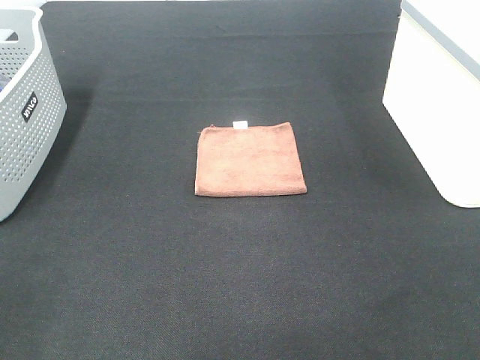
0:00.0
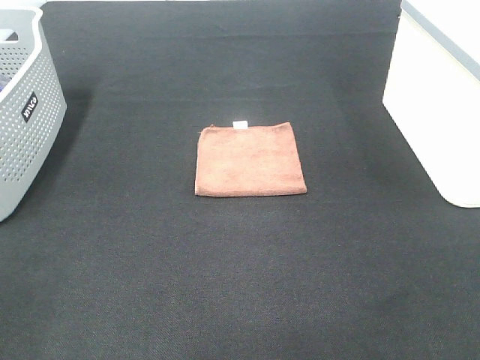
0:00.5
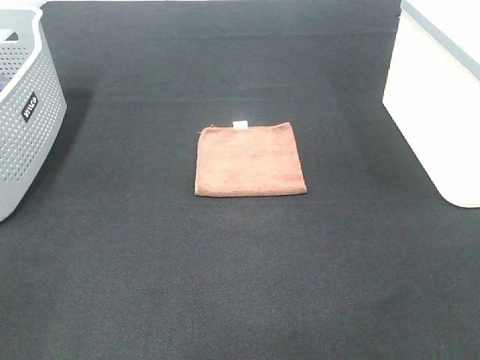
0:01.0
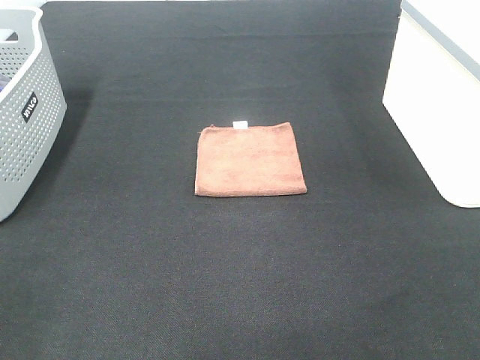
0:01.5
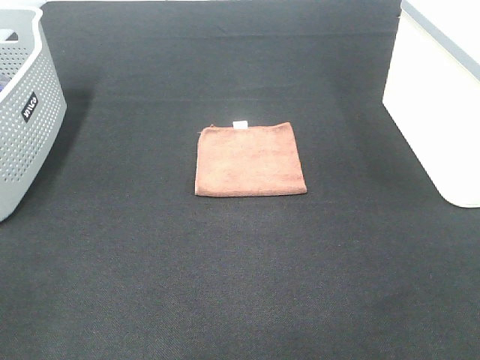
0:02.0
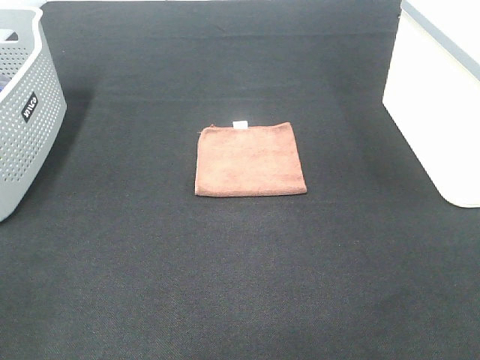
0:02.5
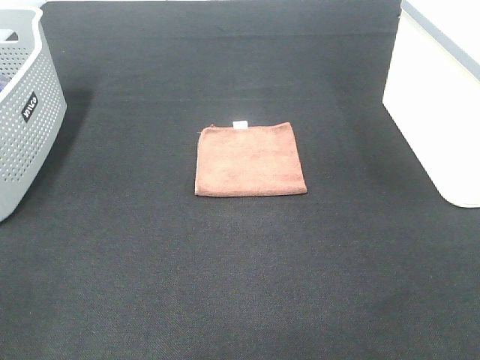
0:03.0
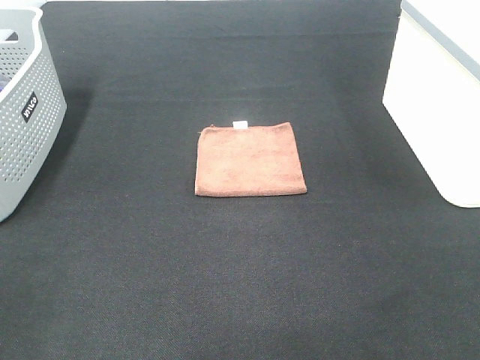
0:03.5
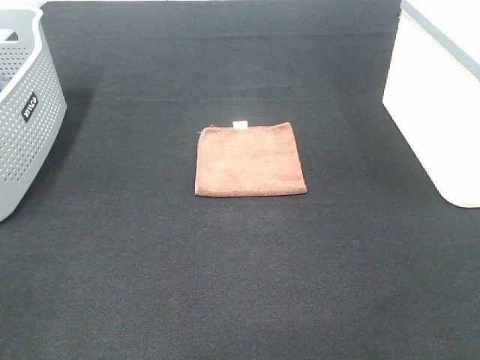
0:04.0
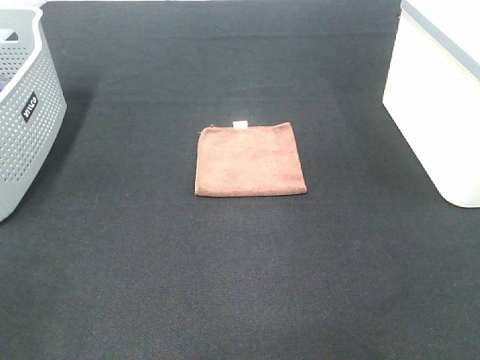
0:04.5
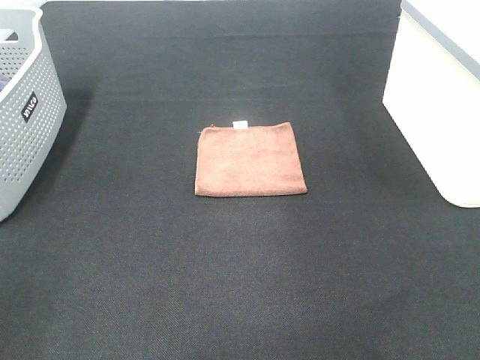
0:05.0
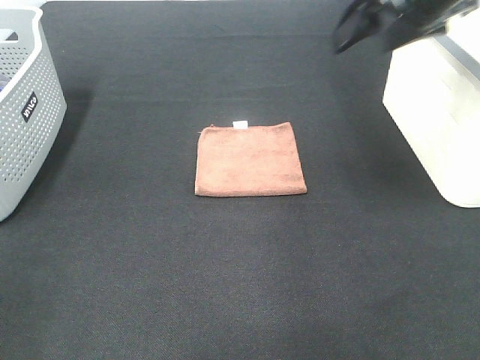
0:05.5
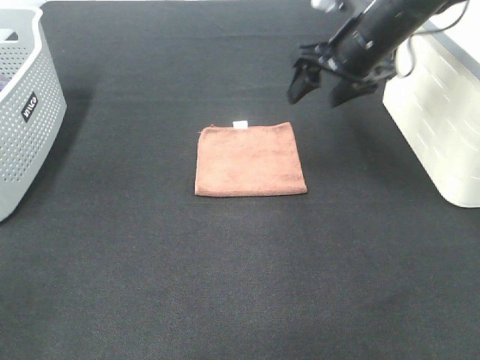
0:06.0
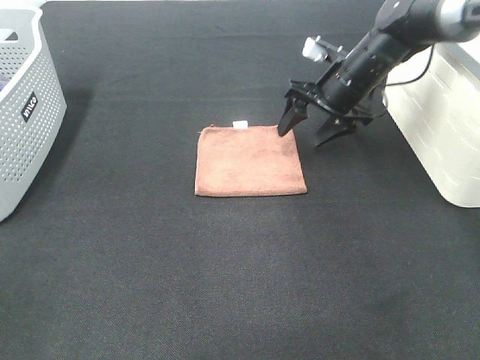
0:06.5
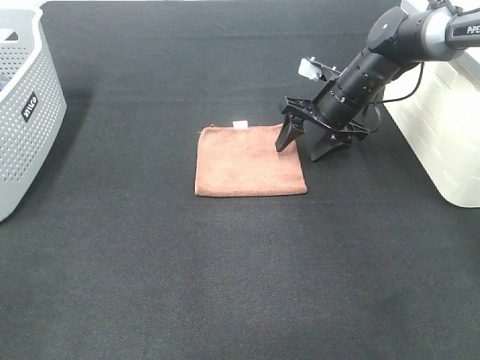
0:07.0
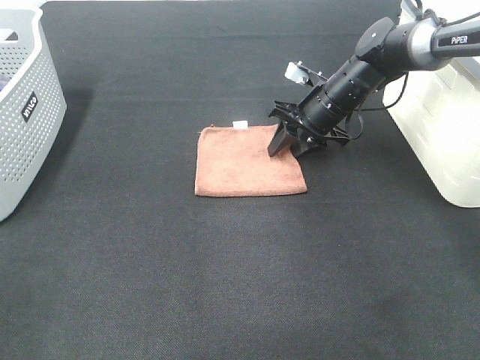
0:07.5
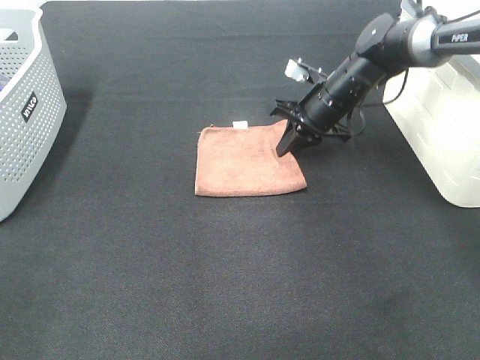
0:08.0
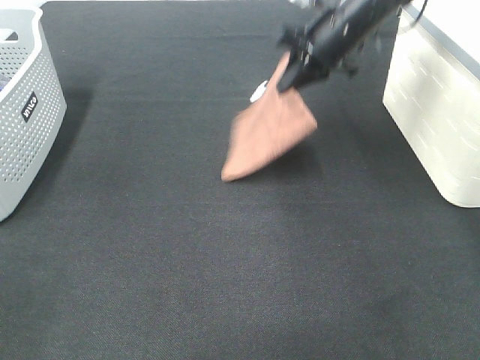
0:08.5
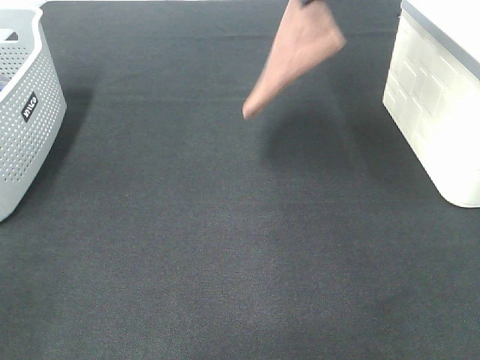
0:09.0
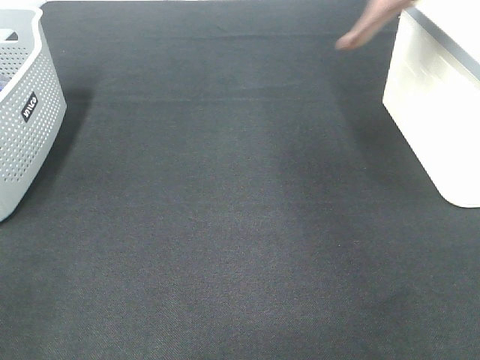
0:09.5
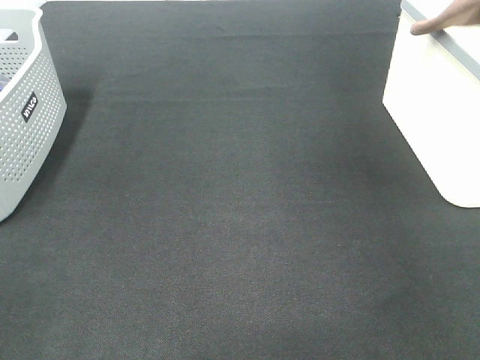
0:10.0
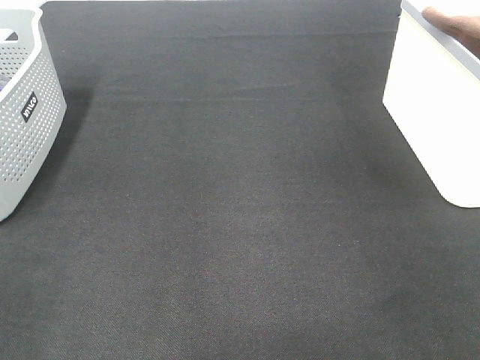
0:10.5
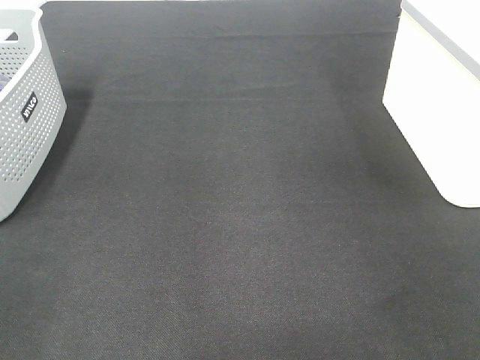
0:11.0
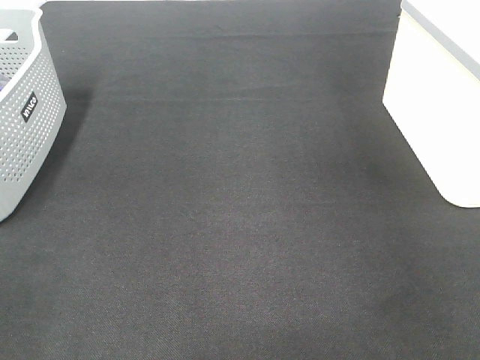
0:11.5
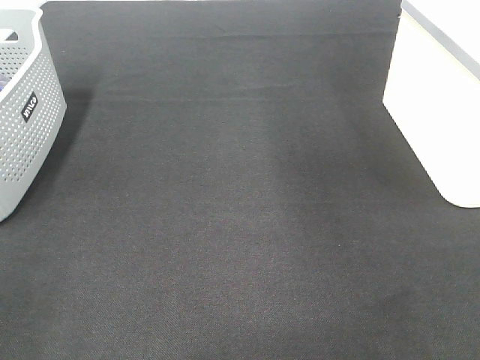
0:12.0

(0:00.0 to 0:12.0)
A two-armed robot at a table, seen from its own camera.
Step, 0:00.0 - 0:08.0: Right hand: grab the folded brown towel.
Step, 0:08.5 - 0:11.0: Right hand: place the brown towel in right basket.
0:00.0 - 0:02.0: Both grippers stay put.
0:04.0 - 0:06.0: The right gripper goes approximately 40 cm forward.
0:06.0 - 0:08.0: The right gripper goes approximately 10 cm downward, and closes its fingers.
0:08.0 - 0:10.0: The right gripper heads upward and to the right, covering roughly 40 cm.
0:10.0 - 0:12.0: The right gripper travels to the left by some 10 cm, and opens its fingers.

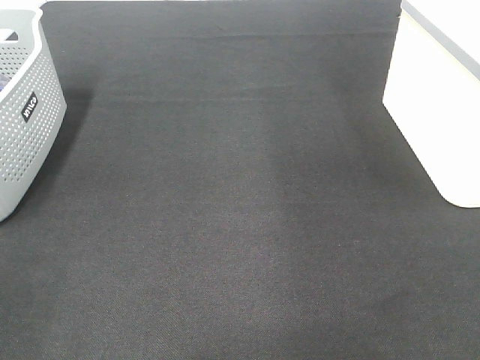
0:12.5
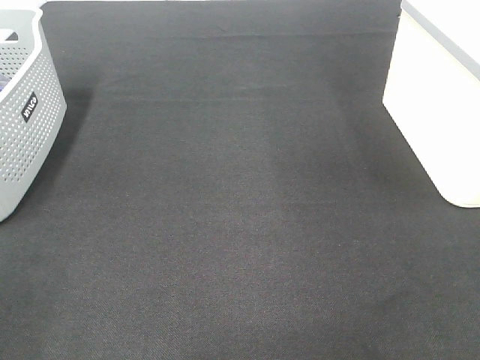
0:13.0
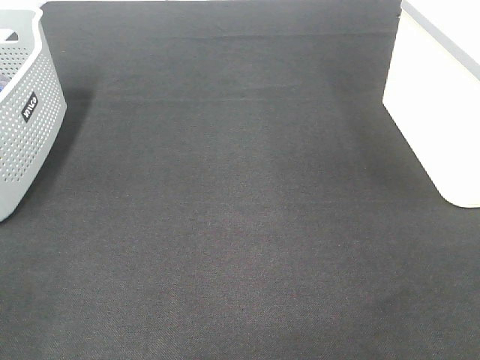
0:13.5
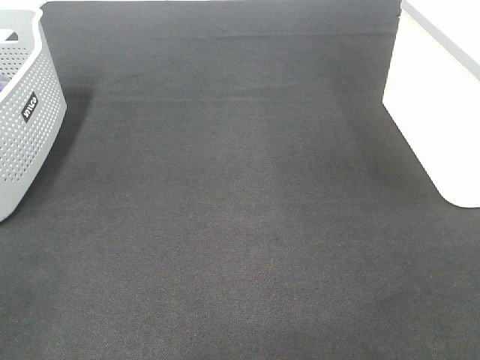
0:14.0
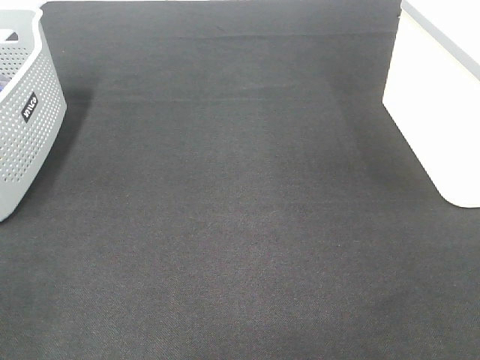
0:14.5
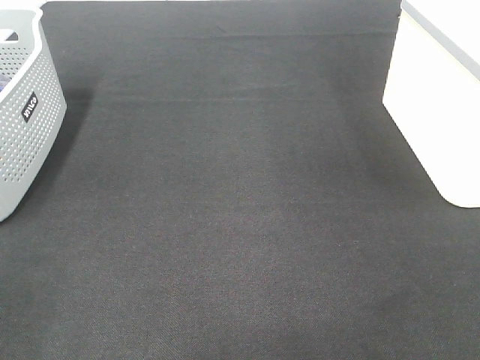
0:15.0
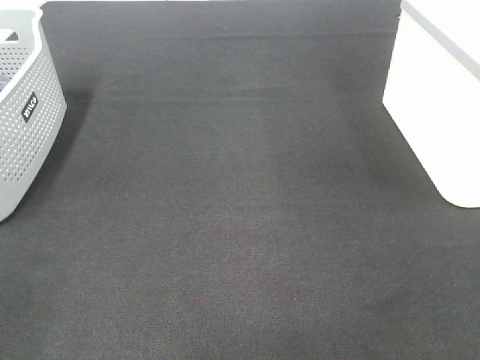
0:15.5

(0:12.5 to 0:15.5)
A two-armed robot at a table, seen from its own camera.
0:14.0 - 0:15.5: Neither gripper changes place.

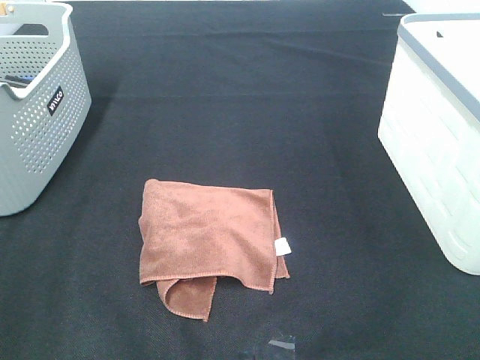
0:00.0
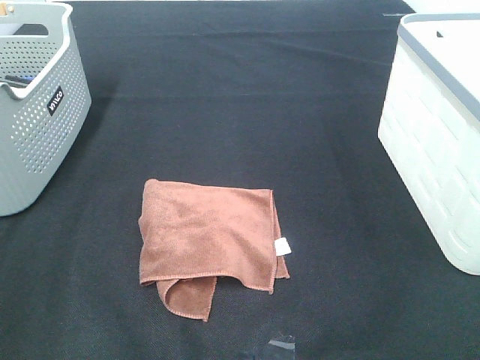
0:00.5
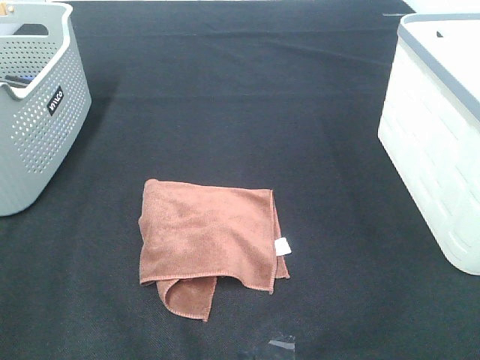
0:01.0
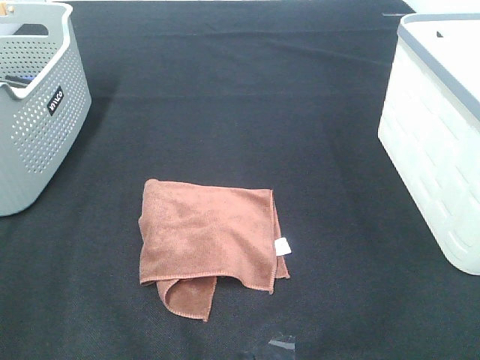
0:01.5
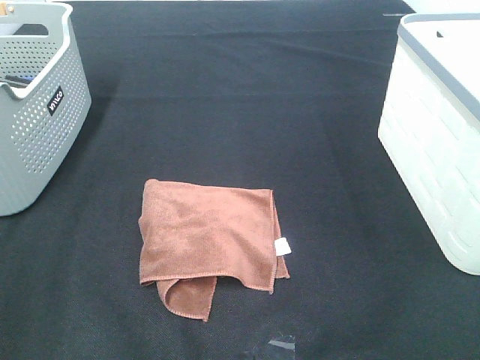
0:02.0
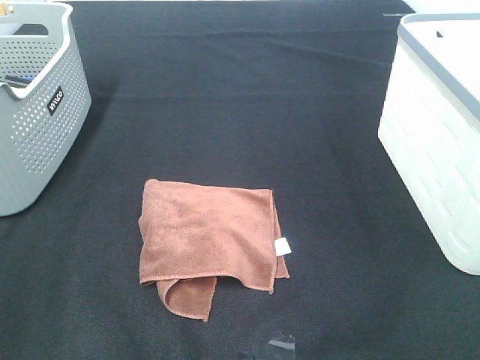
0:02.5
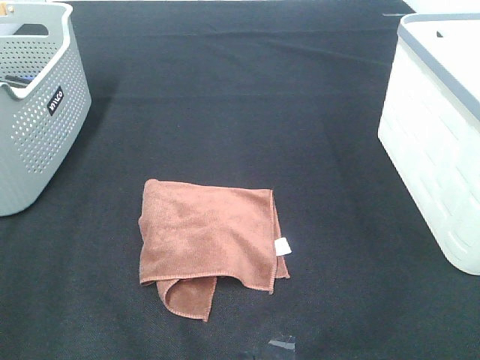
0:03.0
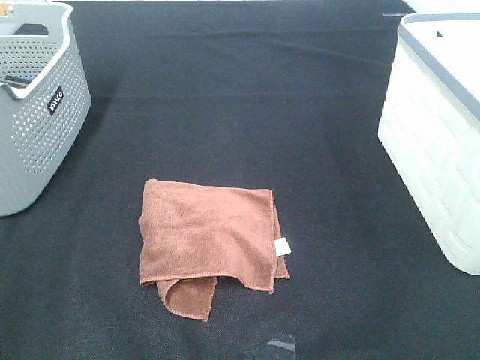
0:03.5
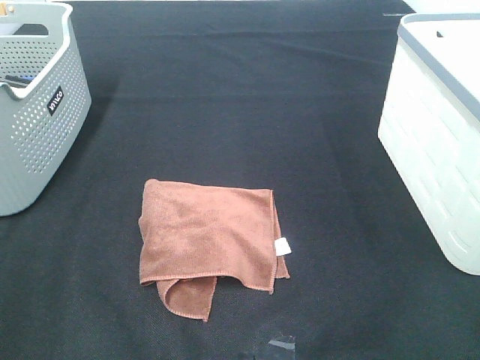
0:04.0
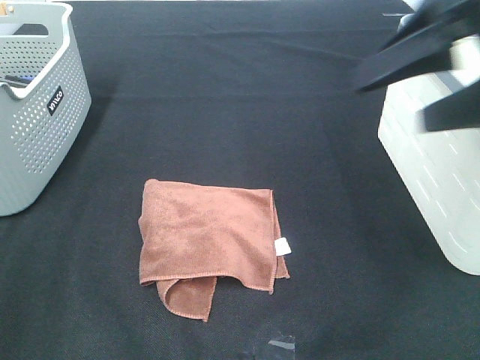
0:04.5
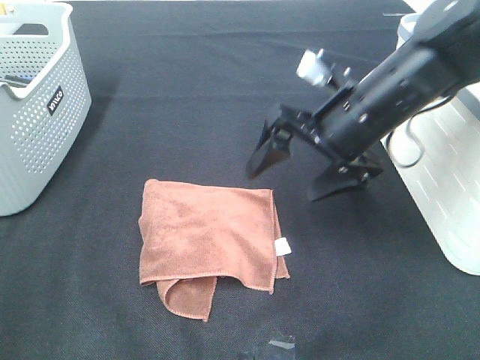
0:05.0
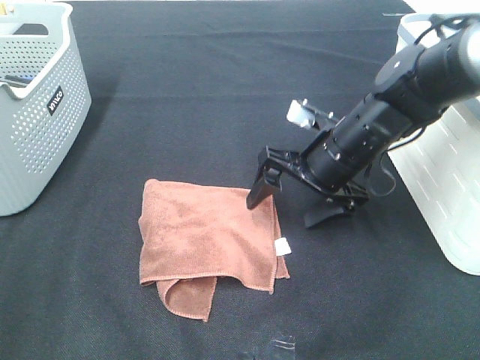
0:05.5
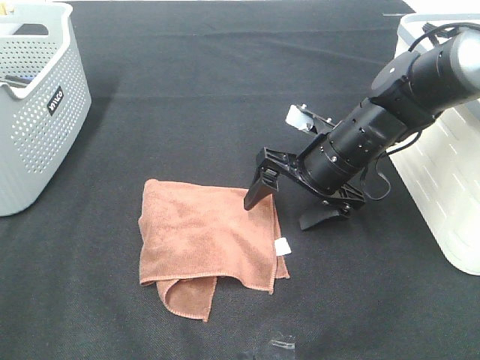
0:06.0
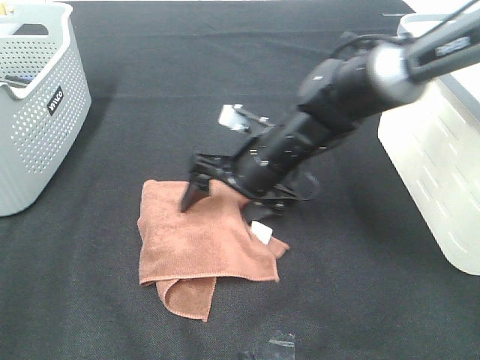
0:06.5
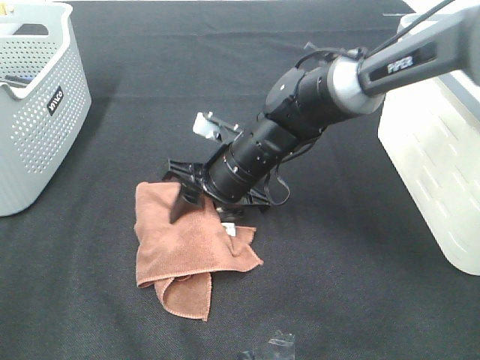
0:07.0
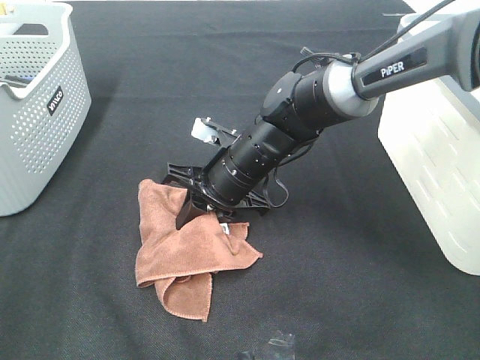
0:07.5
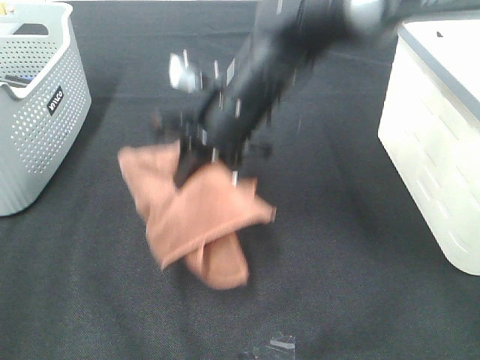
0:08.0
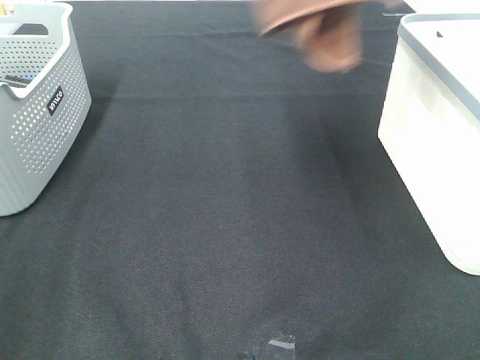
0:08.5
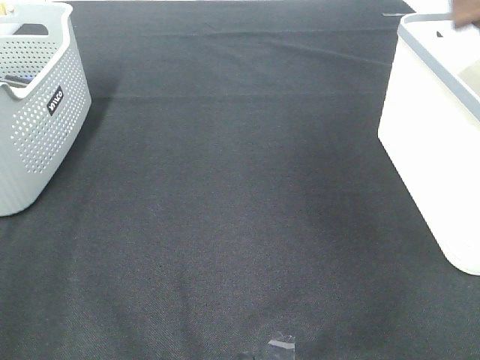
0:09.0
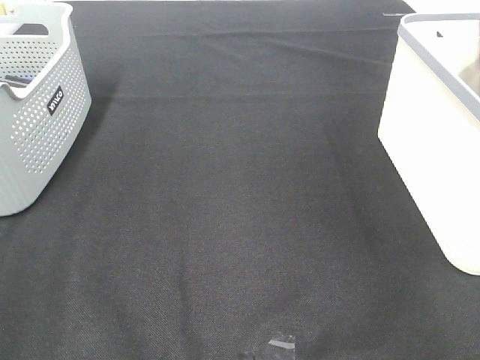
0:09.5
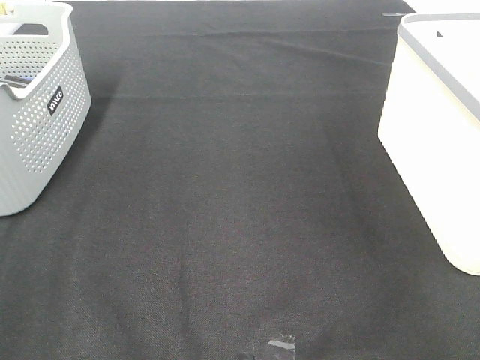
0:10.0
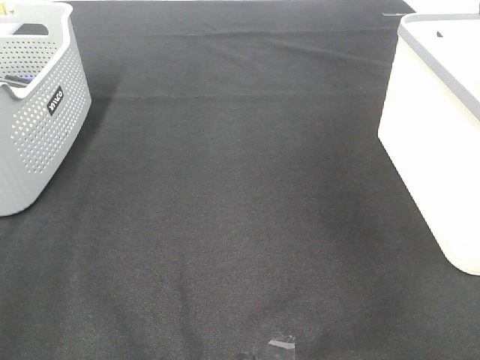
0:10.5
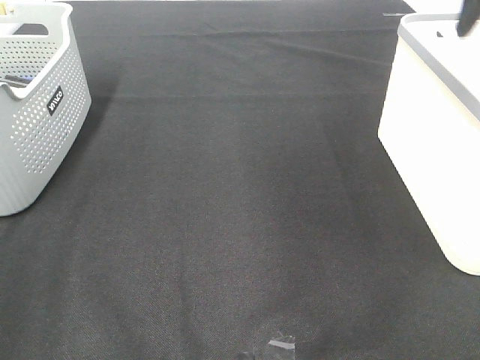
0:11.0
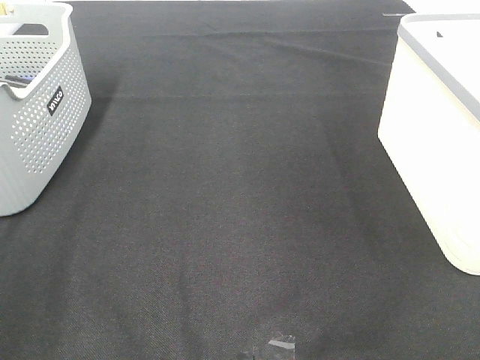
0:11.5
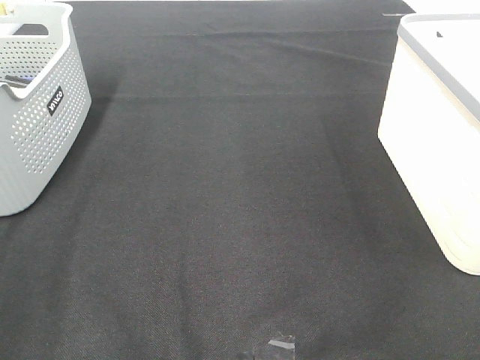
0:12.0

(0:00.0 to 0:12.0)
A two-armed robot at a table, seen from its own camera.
Step, 0:00.0 - 0:07.5: Right hand: grab the folded brown towel.
Step, 0:08.0 - 0:09.5: Right hand: place the brown towel in right basket.
0:00.0 - 0:02.0: Both grippers stay put.
0:04.0 - 0:06.0: The right gripper shifts roughly 35 cm downward, forward and to the left.
0:06.0 - 0:08.0: The right gripper moves to the left and upward, some 15 cm, and closes.
0:08.0 - 0:10.0: The right gripper goes some 40 cm to the right, and opens up.
